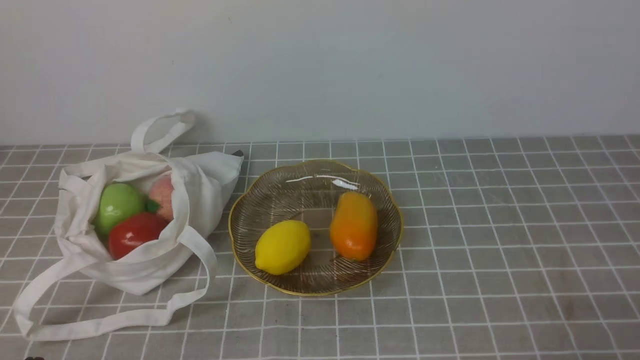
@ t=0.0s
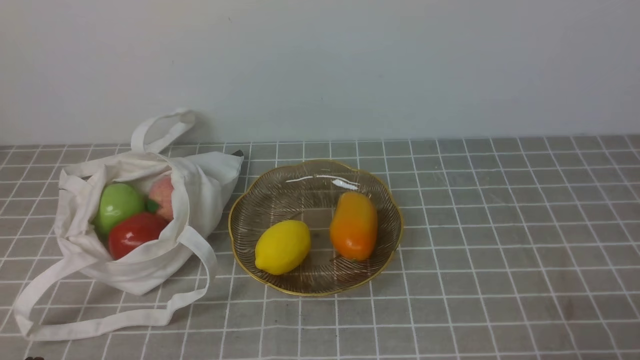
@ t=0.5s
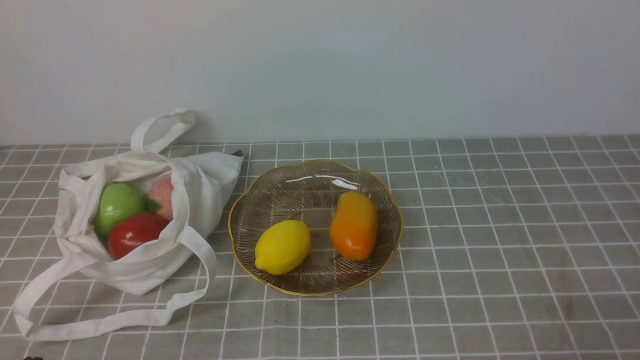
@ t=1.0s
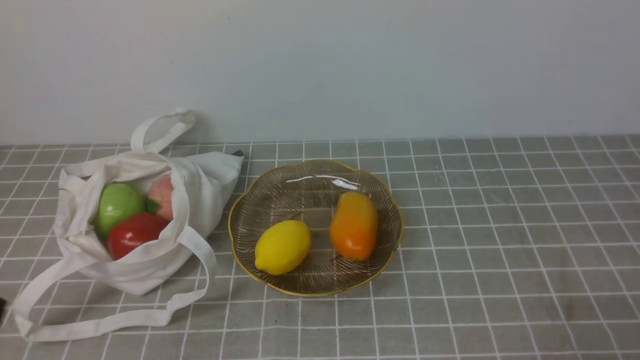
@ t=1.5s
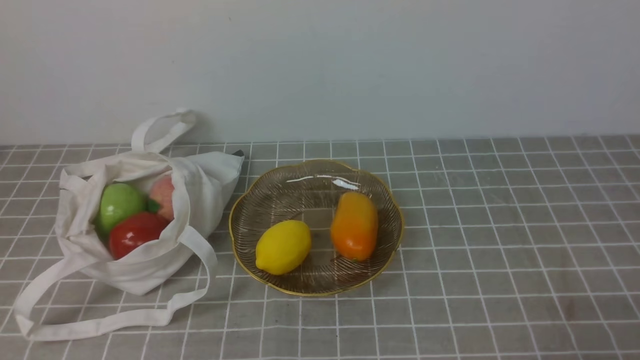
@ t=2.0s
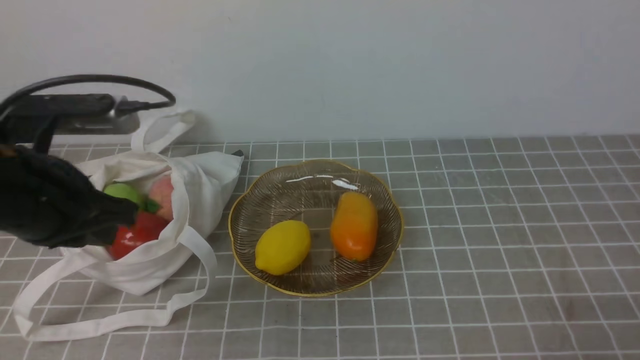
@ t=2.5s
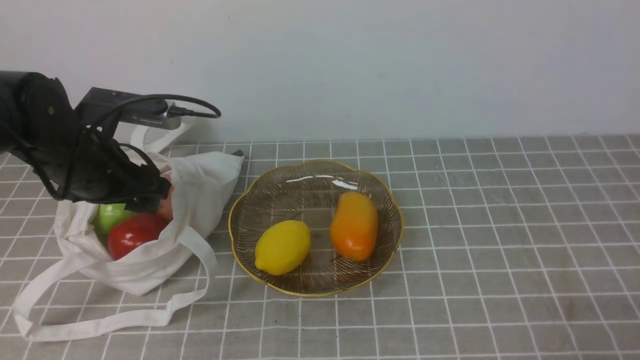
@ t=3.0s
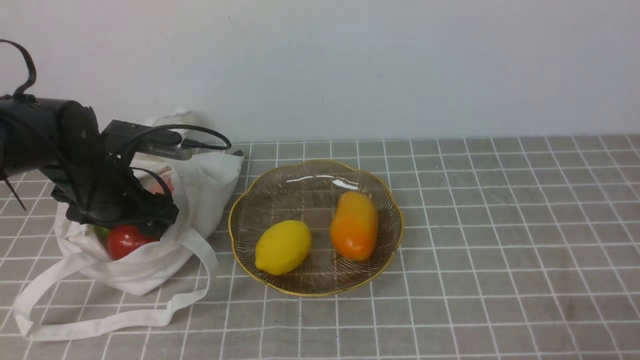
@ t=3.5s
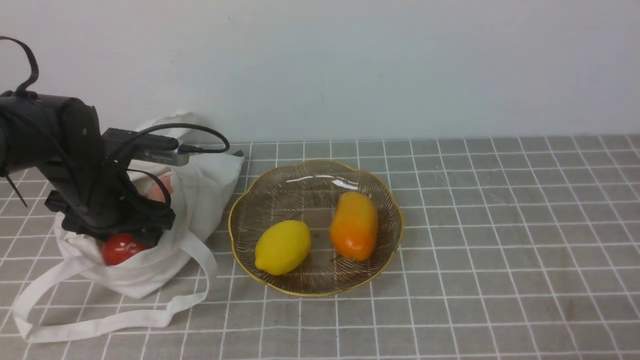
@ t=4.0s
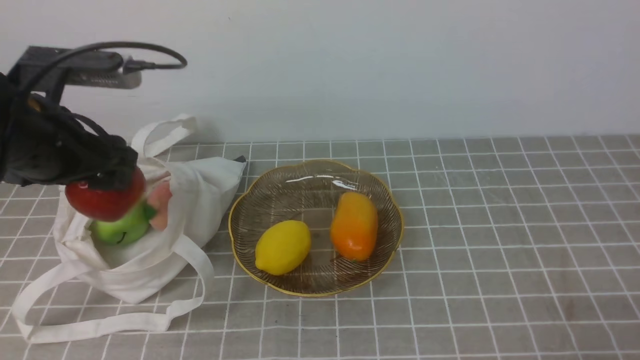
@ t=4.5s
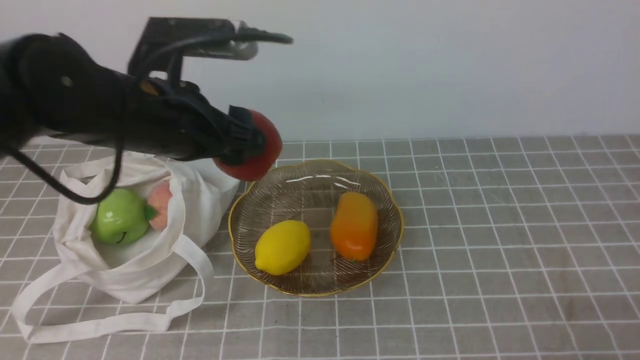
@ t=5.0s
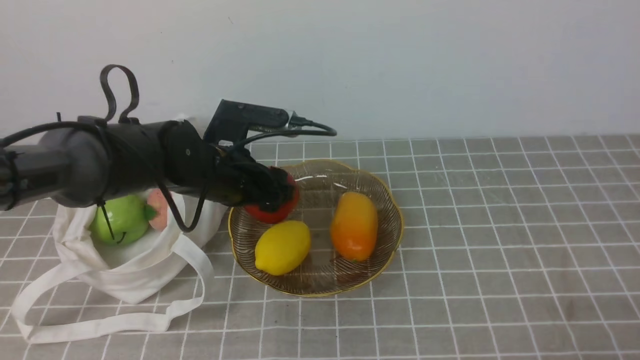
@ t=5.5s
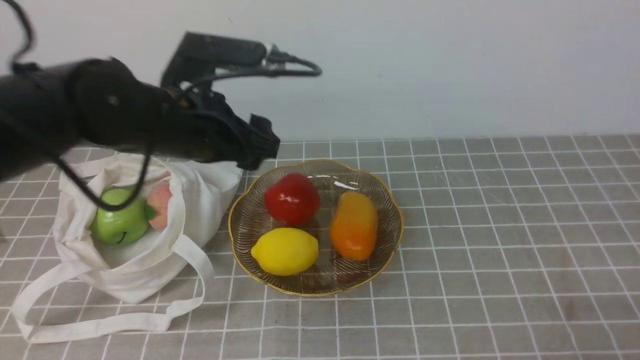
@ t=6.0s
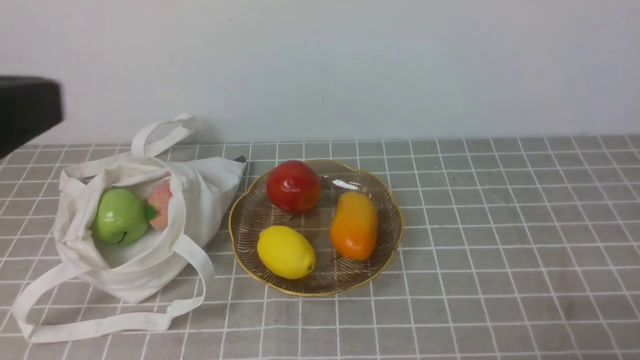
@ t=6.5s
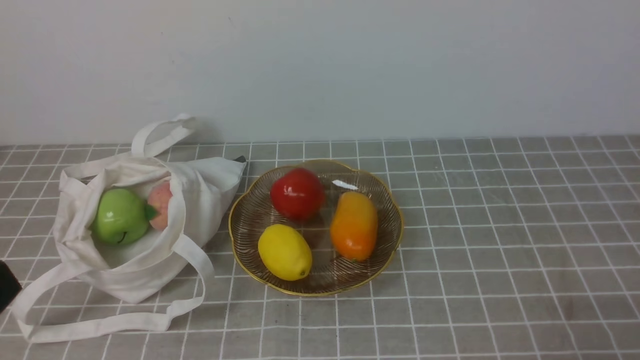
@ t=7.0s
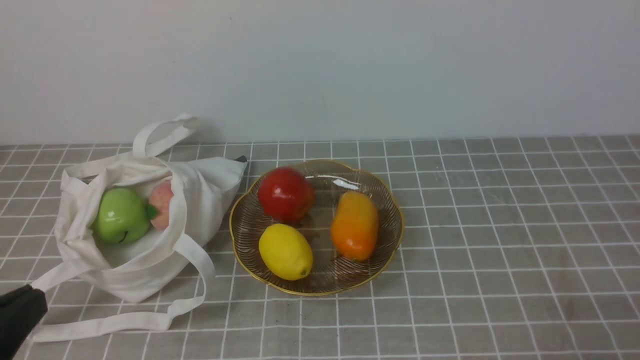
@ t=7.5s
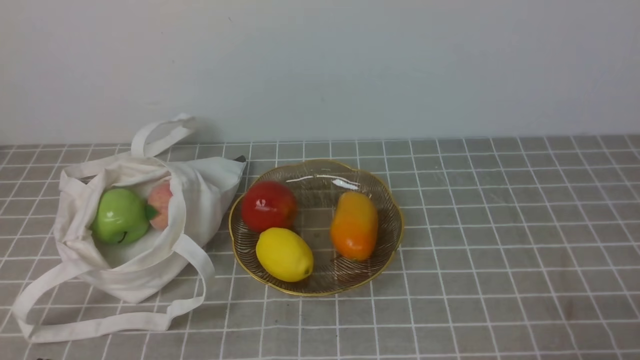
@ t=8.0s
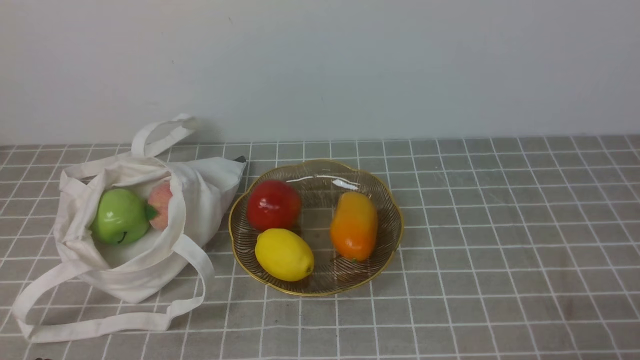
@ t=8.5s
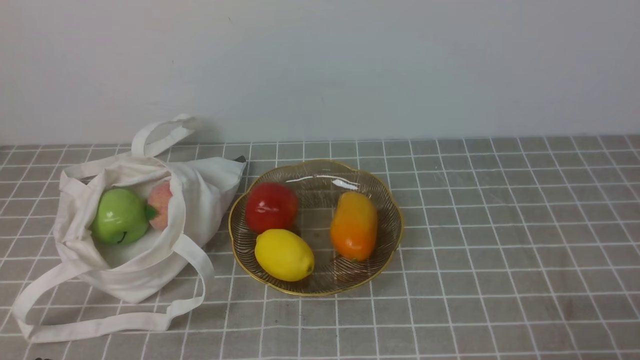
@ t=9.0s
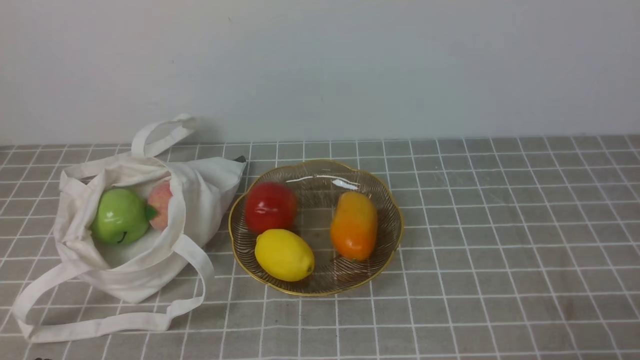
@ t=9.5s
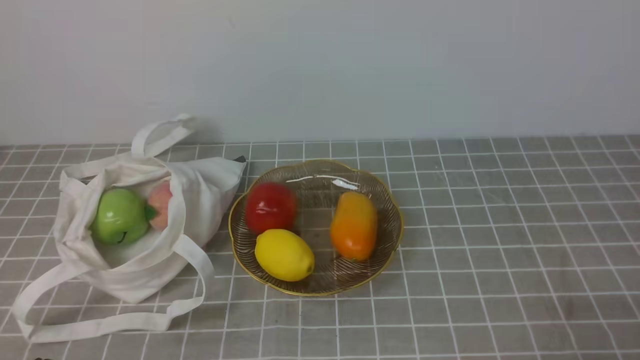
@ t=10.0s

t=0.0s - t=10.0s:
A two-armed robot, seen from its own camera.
Step, t=0.0s - t=4.0s: use the left arm to grab an apple from the bag.
Step, t=4.5s - t=6.0s: use the left arm to put the apple into the empty plate on the right.
t=2.0s - t=4.0s: The left gripper shifts roughly 30 cm forward and downward, and opens.
t=4.0s - t=6.0s: The left gripper is displaced upward and to the right by roughly 15 cm.
t=6.0s - t=8.0s: The left gripper is displaced backward, downward and to the left by roughly 30 cm, and closes.
t=8.0s - t=10.0s: The two grippers keep their place.

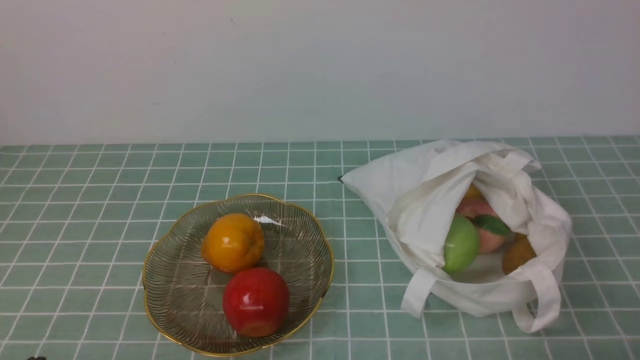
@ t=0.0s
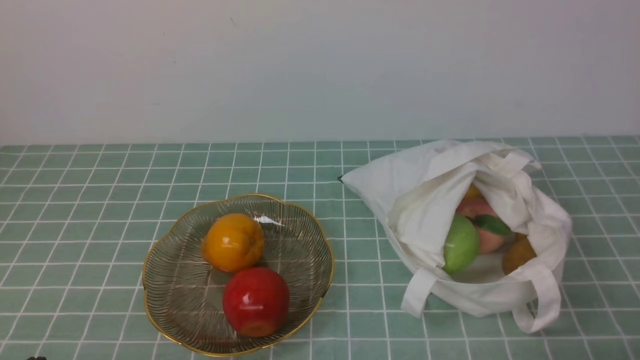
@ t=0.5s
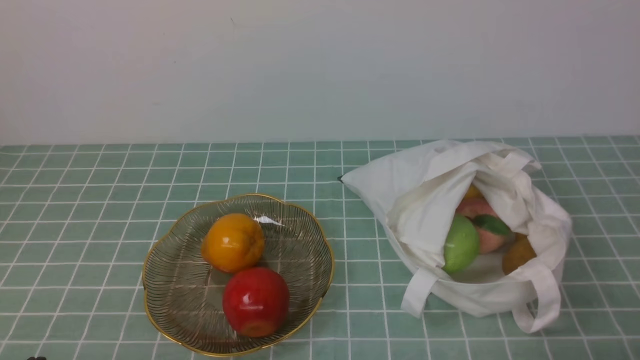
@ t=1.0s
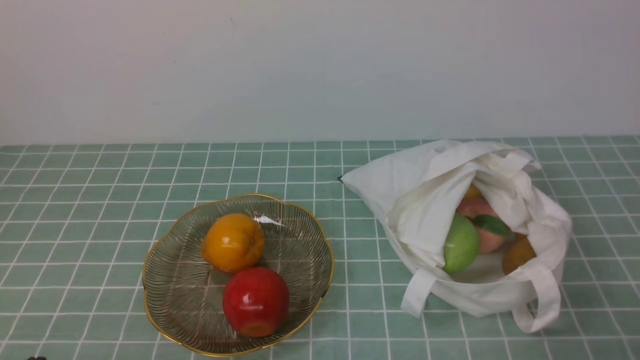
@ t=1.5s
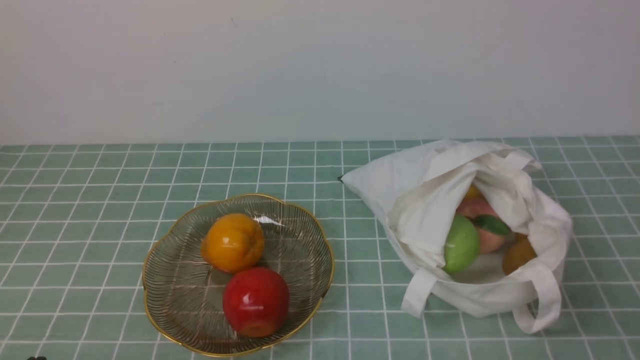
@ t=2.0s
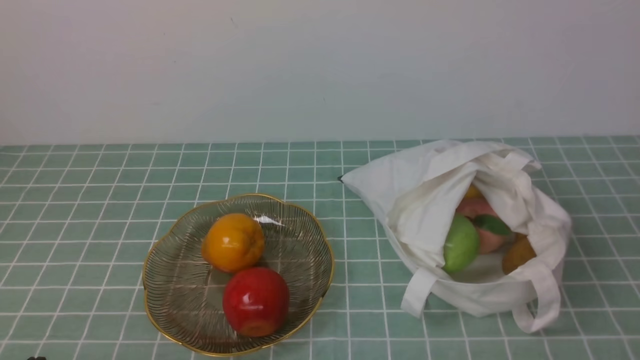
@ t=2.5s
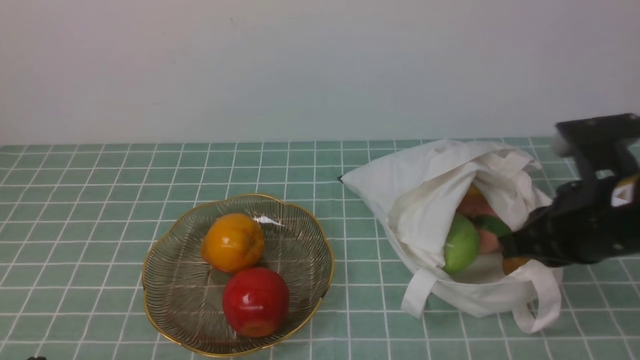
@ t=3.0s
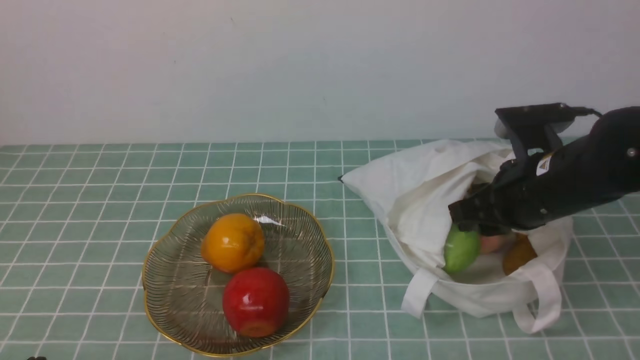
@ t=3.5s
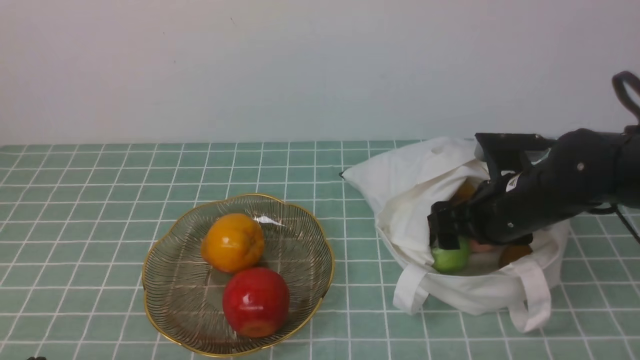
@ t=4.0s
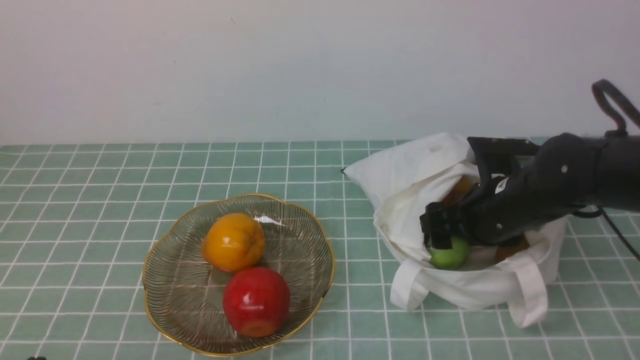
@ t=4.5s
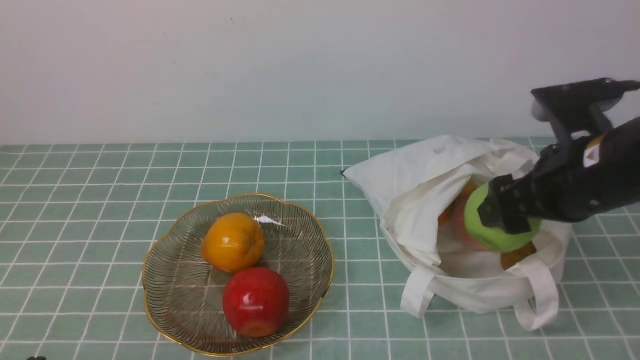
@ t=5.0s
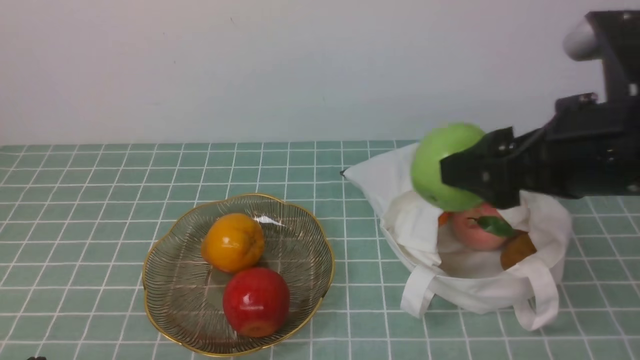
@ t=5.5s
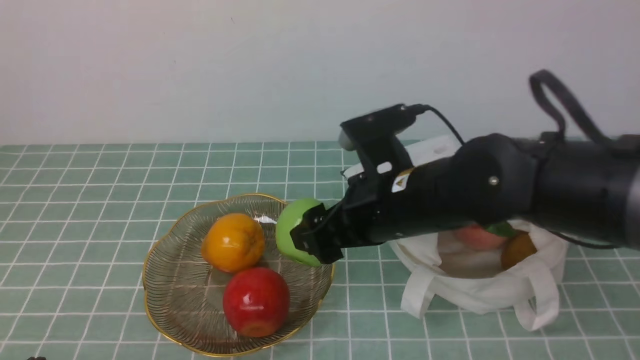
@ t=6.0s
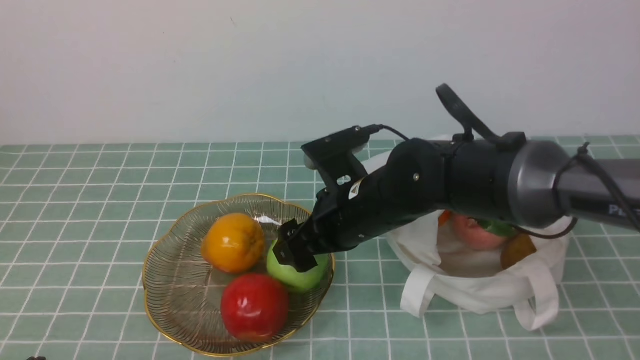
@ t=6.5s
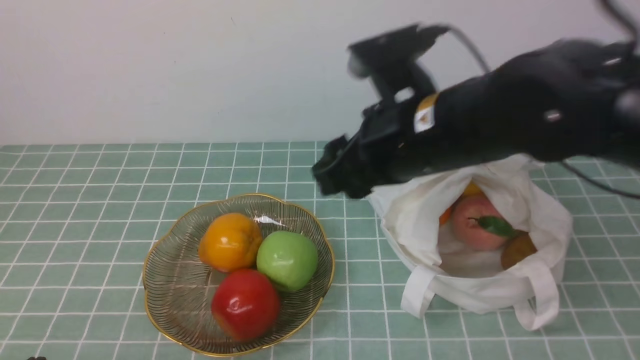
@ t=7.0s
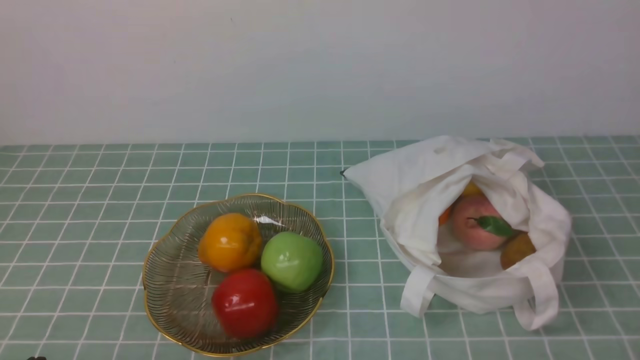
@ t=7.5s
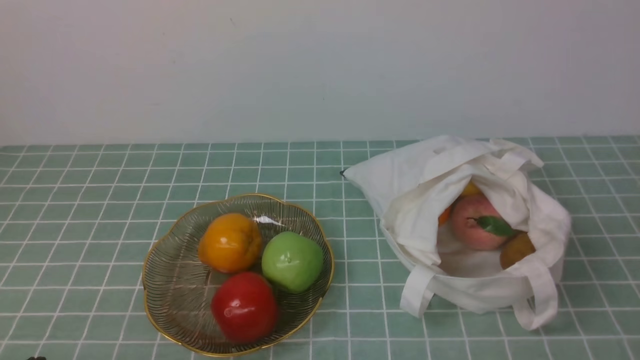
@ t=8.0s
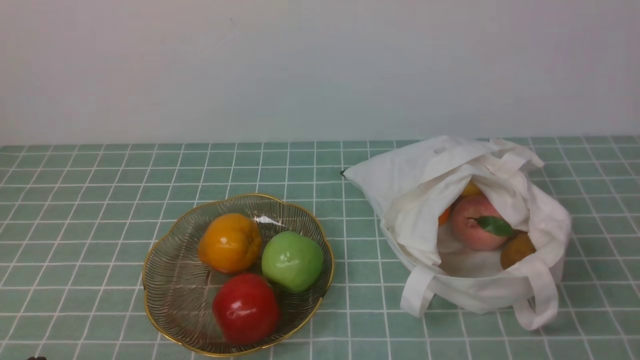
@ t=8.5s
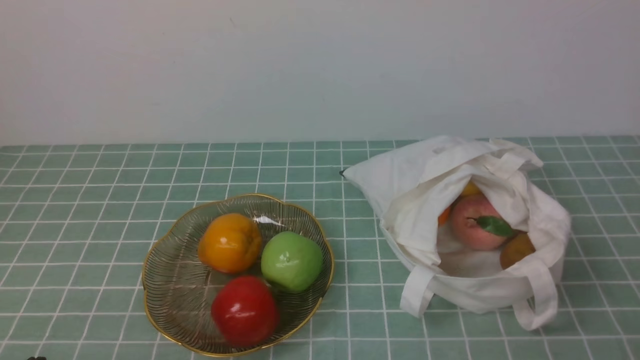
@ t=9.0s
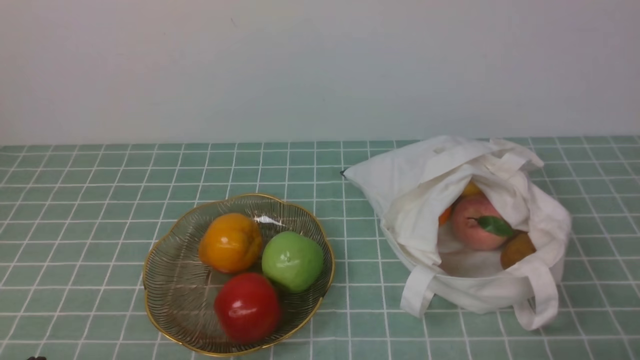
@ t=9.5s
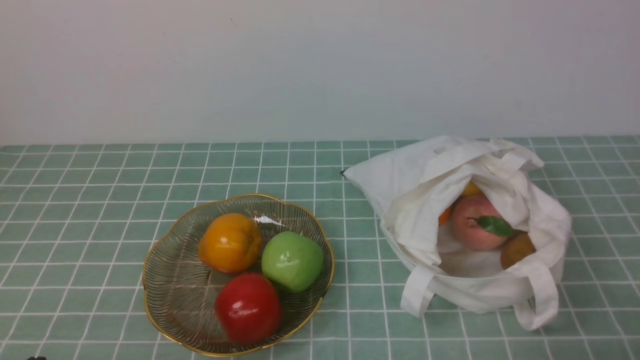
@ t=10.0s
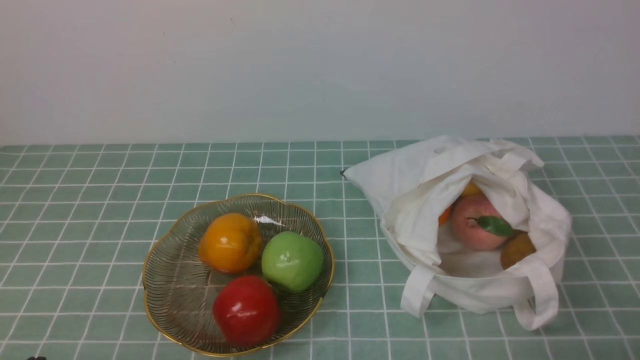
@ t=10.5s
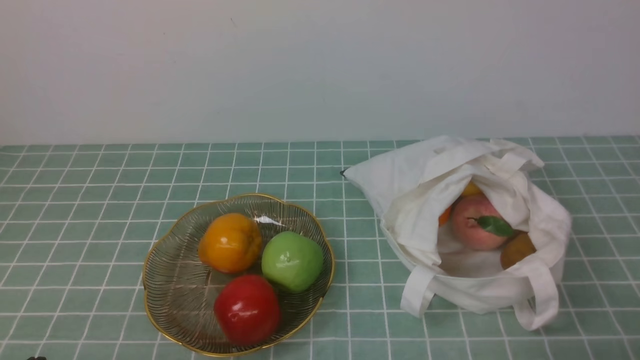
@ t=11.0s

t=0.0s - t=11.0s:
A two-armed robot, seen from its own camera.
Step, t=0.0s - t=4.5s: use the right arm to grab an apple from the bag.
Step, t=5.0s - t=6.5s: use the right arm to put the apple into the empty plate on the left.
t=2.0s - t=3.5s: The right gripper heads forward and to the left, covering about 25 cm, and opens up.
t=3.5s - t=5.5s: The right gripper shifts approximately 15 cm upward and backward, and opens its fingers.
t=5.5s - t=7.5s: The right gripper shifts approximately 20 cm backward, upward and to the right, and closes up.
